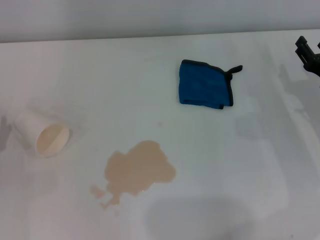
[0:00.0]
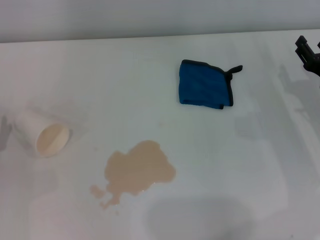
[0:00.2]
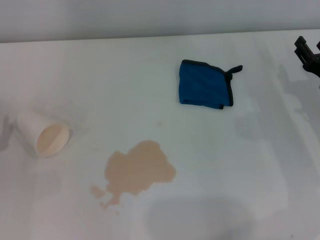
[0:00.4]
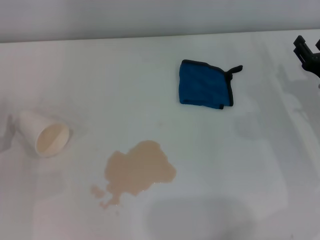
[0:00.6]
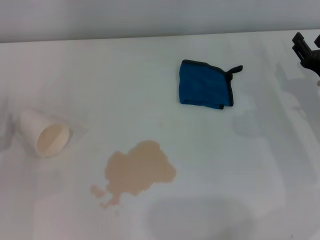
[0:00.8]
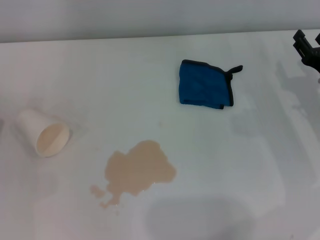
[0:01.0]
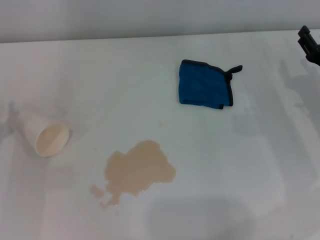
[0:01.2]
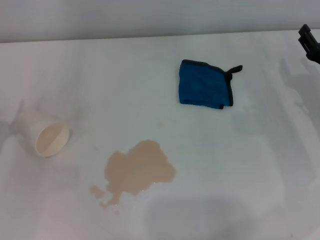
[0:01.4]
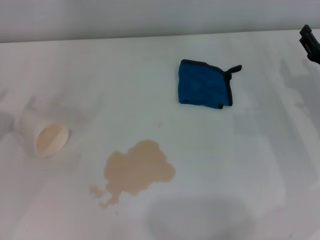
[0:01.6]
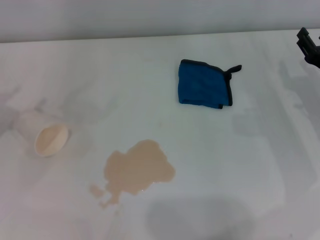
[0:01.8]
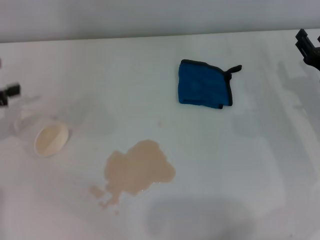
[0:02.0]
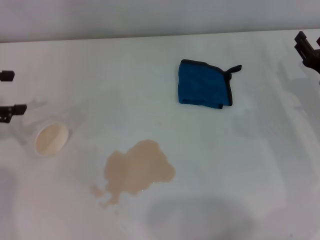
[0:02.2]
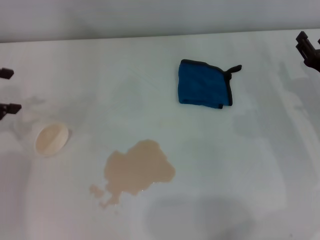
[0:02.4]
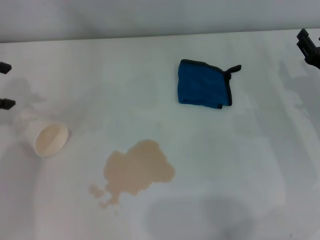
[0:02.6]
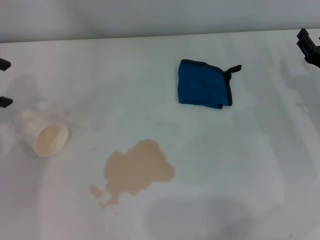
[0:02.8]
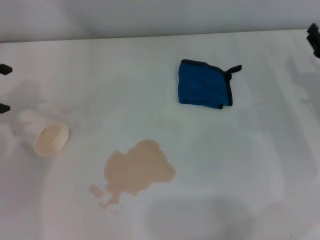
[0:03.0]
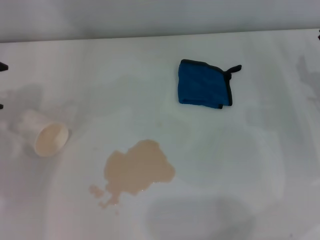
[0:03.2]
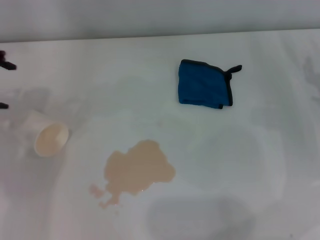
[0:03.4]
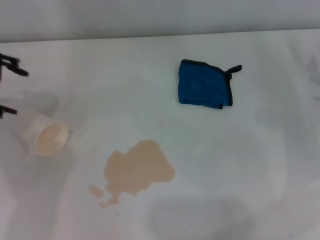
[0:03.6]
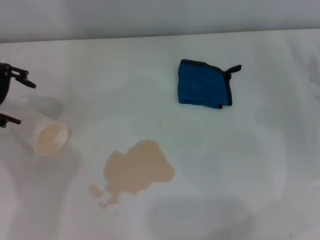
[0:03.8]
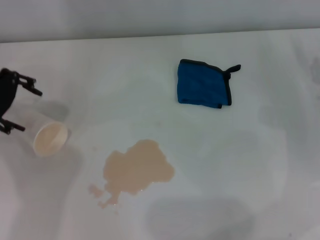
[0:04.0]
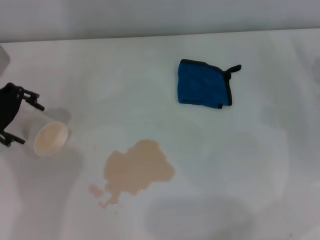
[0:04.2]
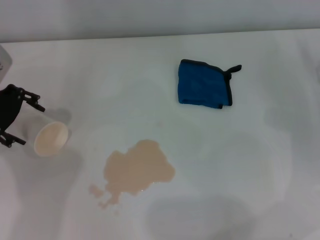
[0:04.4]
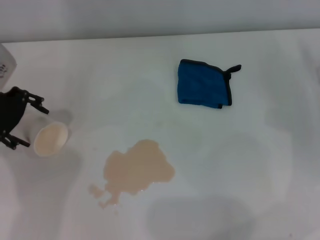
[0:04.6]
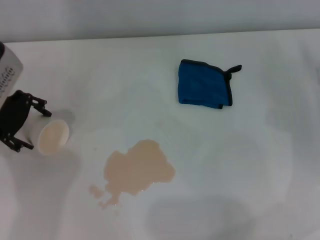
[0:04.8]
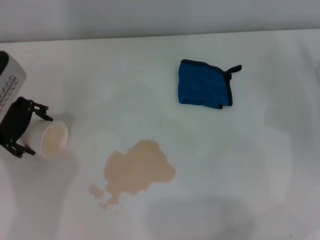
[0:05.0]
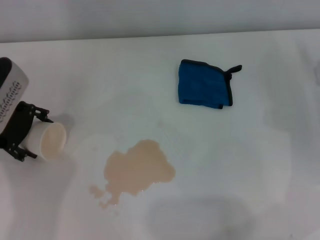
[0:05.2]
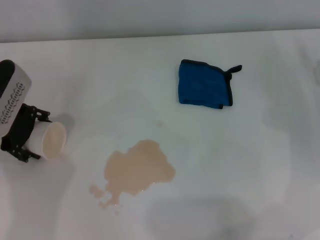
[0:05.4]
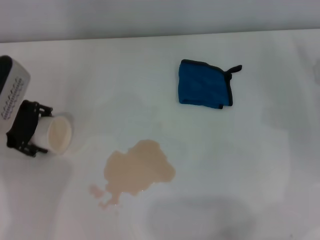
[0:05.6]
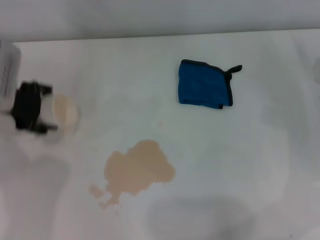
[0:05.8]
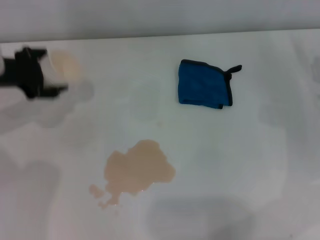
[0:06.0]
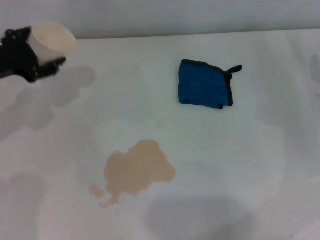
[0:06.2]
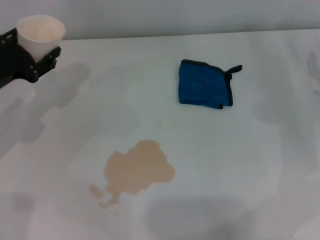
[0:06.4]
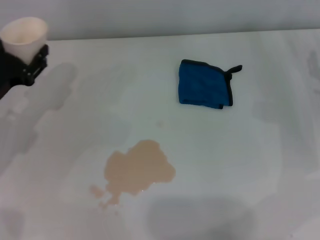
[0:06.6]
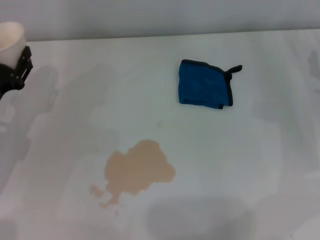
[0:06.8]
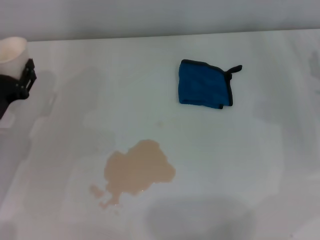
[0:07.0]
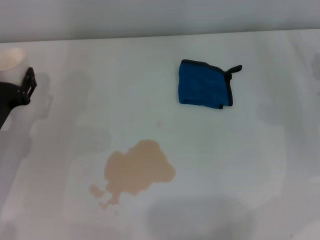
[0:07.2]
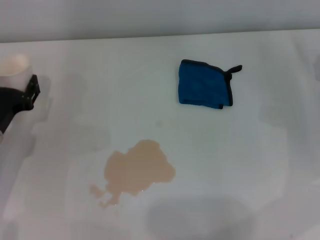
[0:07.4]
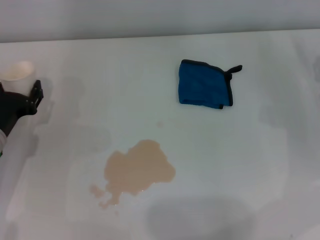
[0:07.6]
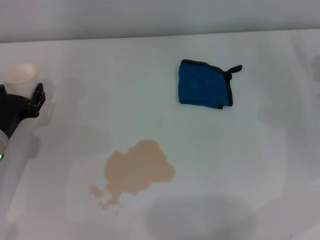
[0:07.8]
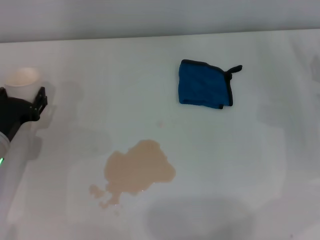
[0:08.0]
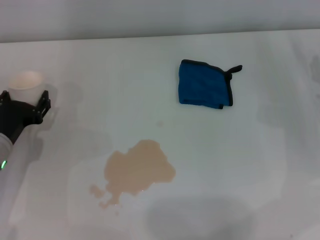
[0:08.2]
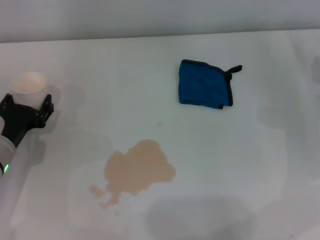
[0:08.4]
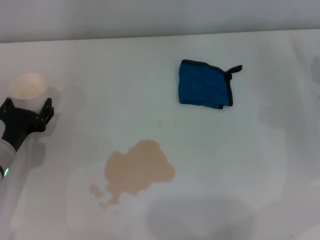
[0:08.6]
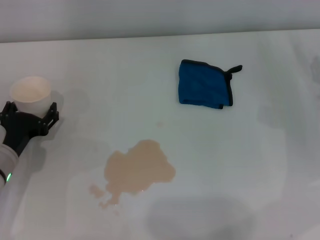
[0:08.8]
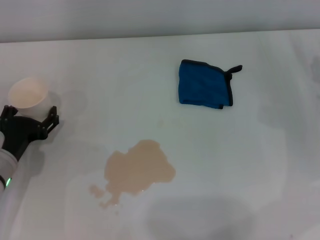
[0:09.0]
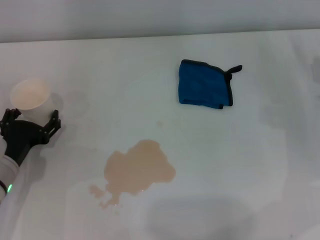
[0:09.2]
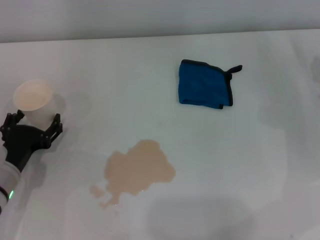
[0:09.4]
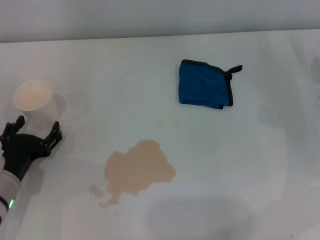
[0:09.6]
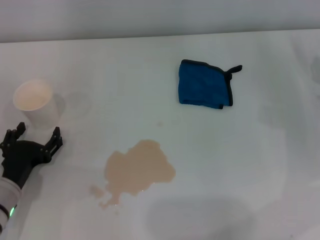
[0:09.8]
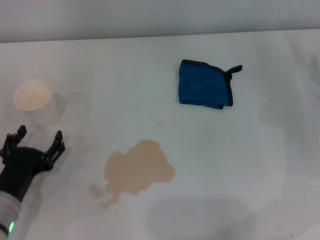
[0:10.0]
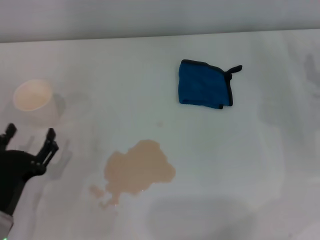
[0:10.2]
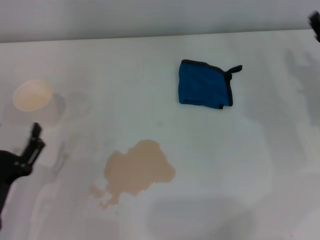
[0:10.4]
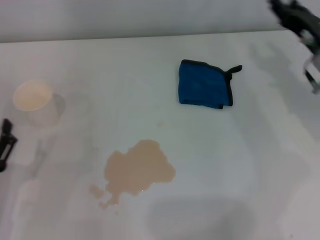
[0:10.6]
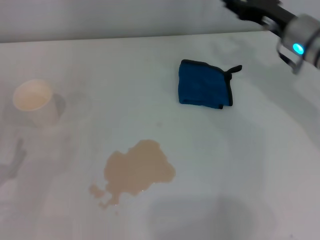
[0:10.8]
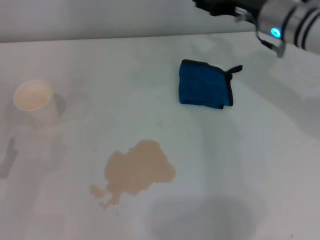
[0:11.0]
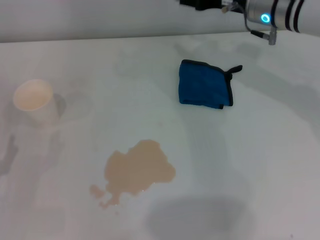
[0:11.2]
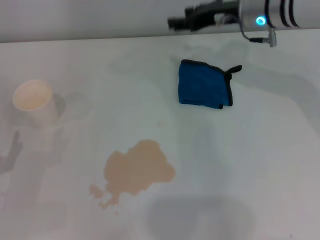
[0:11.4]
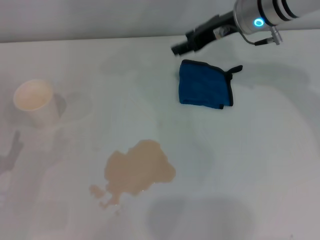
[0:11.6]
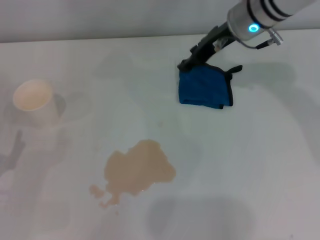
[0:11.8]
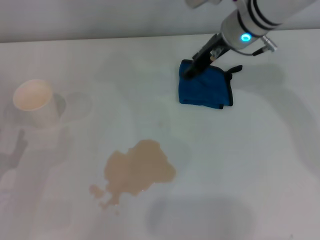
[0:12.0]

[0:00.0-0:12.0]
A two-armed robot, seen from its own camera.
Step, 0:00.0 to 0:05.2: Grasp the paper cup with the left gripper.
Step, 0:05.4 to 0:08.8: Stand the paper cup upright with the left gripper.
0:03.0 to 0:04.4: The left gripper heads downward and to the right, covering approximately 10 cm.
0:04.4 to 0:06.0: The left gripper closes up.
0:06.0 to 0:07.6: The left gripper travels downward and backward by roughly 15 cm, and closes its fingers.
0:07.6 to 0:09.0: The left gripper opens up.
0:09.0 to 0:10.4: The left gripper goes about 10 cm backward.
0:10.4 to 0:12.0: The right gripper is displaced to the left, forward and upward by some 25 cm. Meanwhile the left gripper travels to the left by some 5 cm.

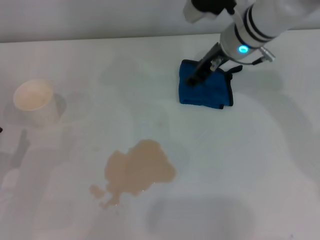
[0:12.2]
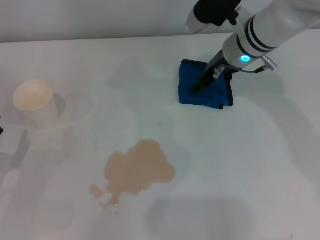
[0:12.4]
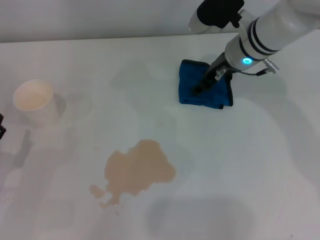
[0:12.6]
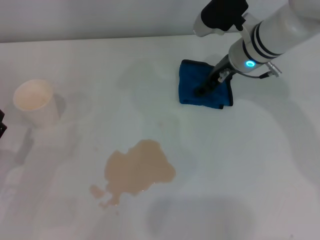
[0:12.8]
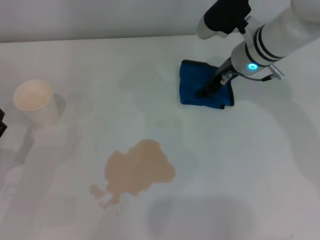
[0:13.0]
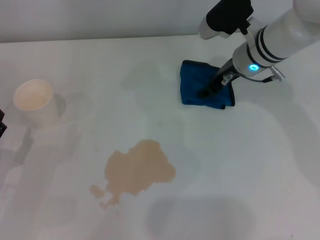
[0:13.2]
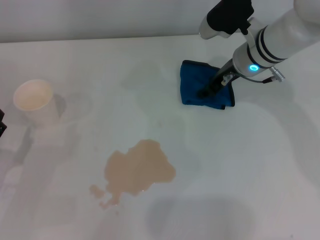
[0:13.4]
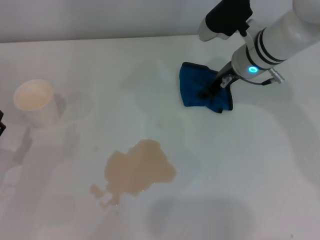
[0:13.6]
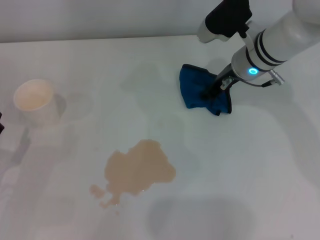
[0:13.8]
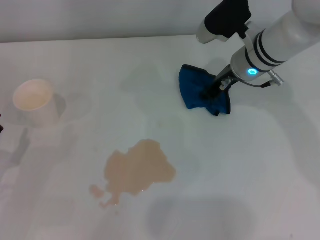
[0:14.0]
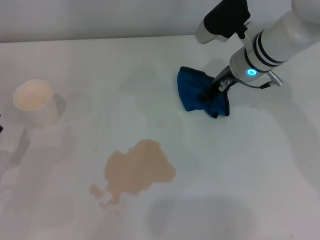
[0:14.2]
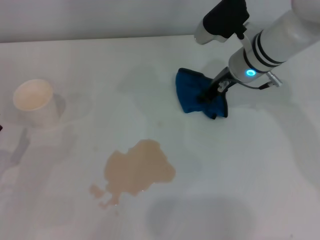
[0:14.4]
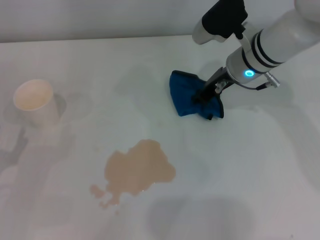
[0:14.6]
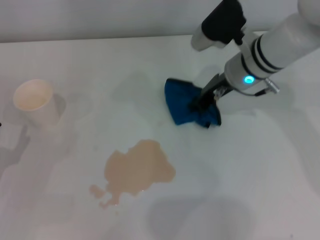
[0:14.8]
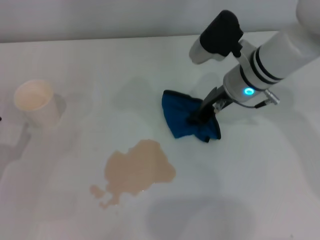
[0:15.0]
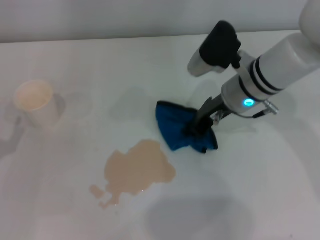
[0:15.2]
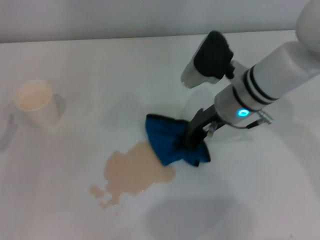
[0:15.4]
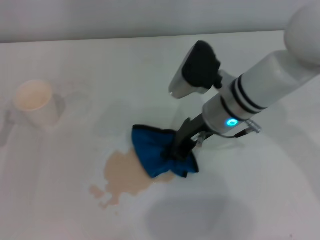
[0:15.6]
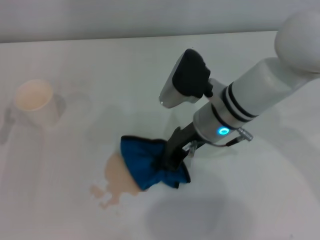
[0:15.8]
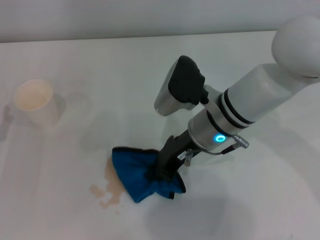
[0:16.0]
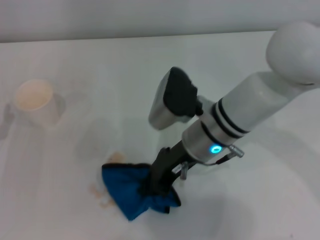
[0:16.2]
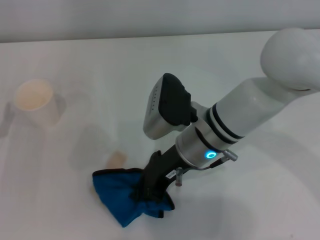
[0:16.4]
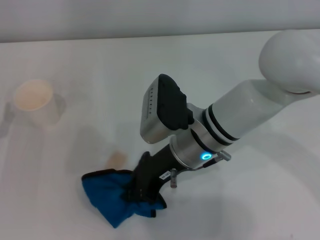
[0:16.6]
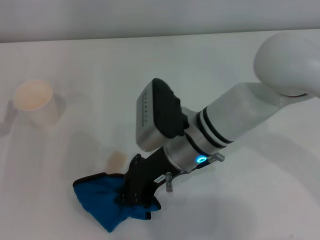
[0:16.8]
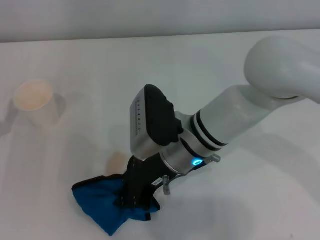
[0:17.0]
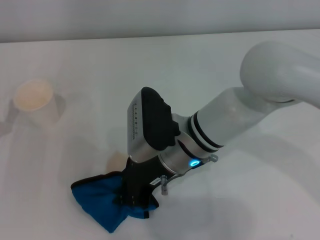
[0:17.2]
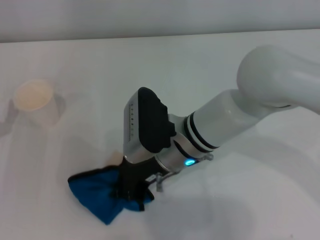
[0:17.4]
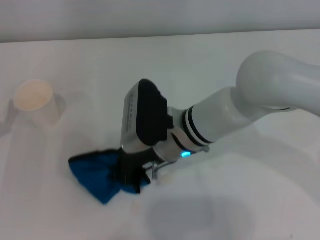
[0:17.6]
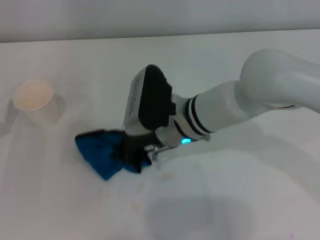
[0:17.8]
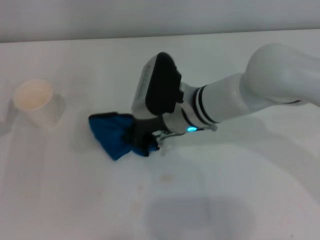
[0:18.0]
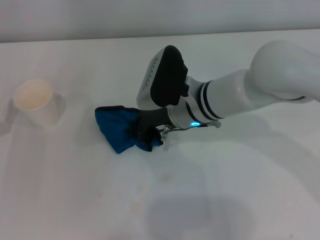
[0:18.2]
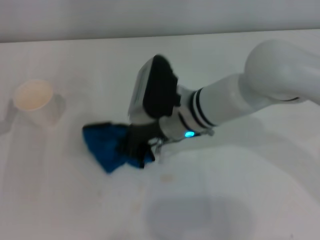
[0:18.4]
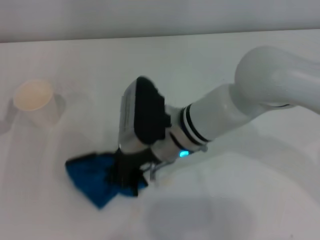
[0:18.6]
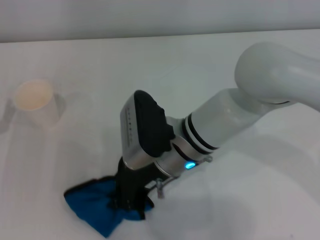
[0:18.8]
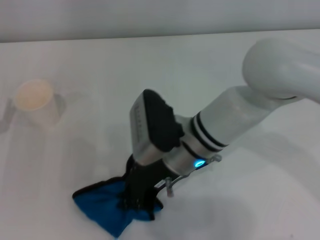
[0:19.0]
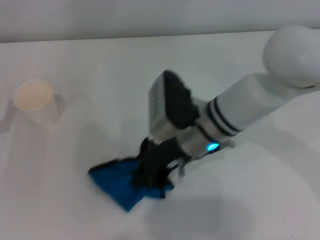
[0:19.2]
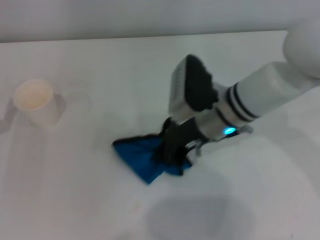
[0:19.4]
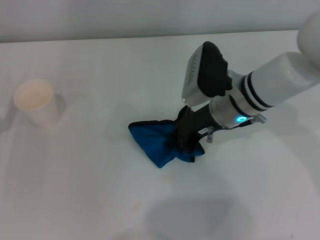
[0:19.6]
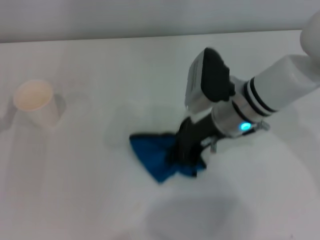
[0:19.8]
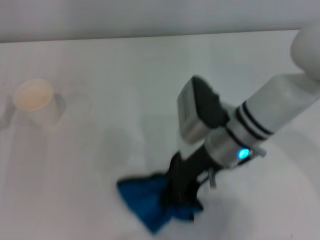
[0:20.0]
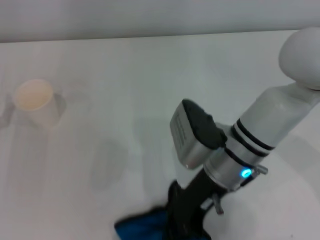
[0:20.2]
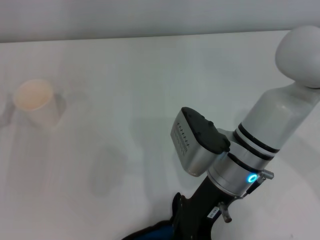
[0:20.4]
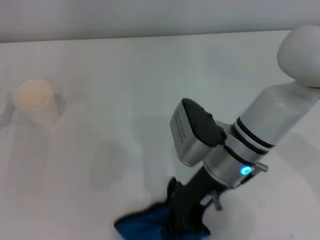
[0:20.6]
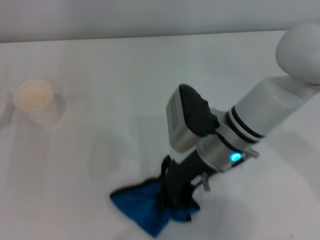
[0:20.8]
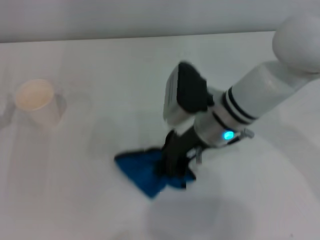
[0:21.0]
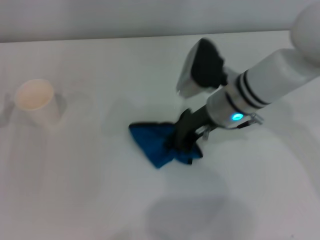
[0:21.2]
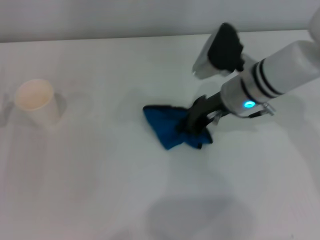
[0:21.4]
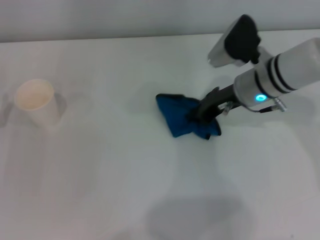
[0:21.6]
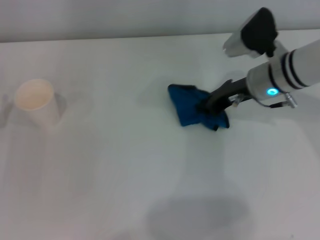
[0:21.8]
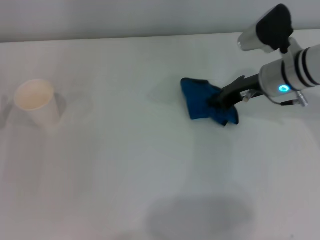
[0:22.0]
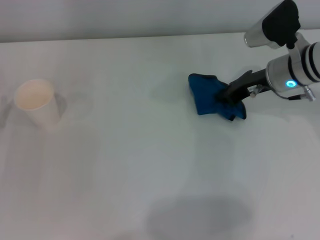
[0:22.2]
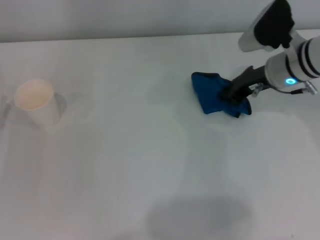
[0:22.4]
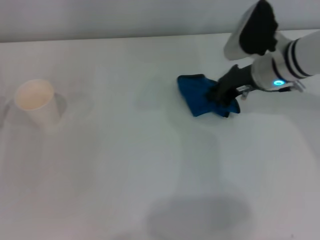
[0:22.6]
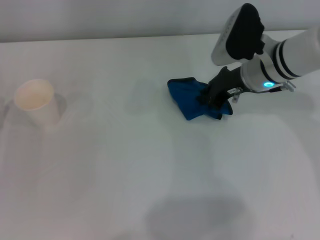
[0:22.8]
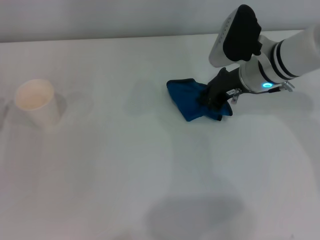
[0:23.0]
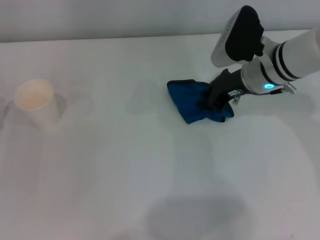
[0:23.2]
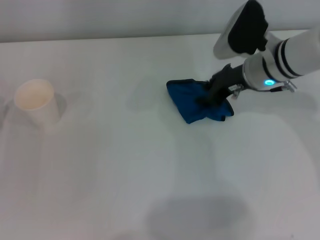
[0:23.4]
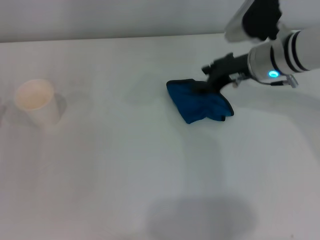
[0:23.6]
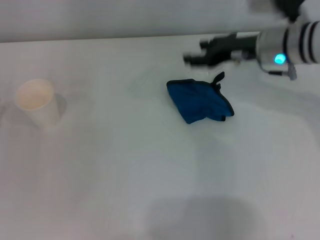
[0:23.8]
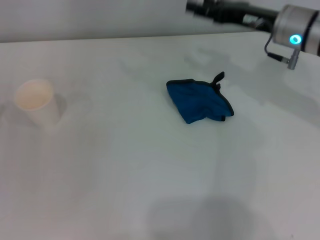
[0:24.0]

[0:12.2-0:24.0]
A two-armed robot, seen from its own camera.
Step, 0:14.2 to 0:21.4: Wipe the stains off the table with the right gripper.
Step, 0:21.6 to 0:23.2: Place the rag on the table with the right gripper.
0:12.2 to 0:13.6: The grippers move only a little.
0:13.6 to 0:15.2: The right gripper moves backward, approximately 5 cm, and closes up.
0:15.2 to 0:16.6: The right gripper heads to the left and backward, covering roughly 10 cm.
0:16.6 to 0:18.2: The right gripper travels forward by roughly 5 cm.
0:18.2 to 0:19.6: The right gripper shifts about 5 cm to the right.
0:19.6 to 0:21.0: The right gripper goes backward and returns, roughly 10 cm each way.
0:21.0 to 0:22.6: The right gripper moves to the right and forward, about 10 cm.
0:22.6 to 0:24.0: The right gripper opens.
